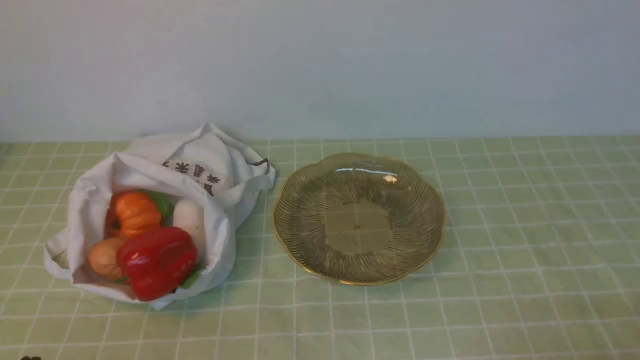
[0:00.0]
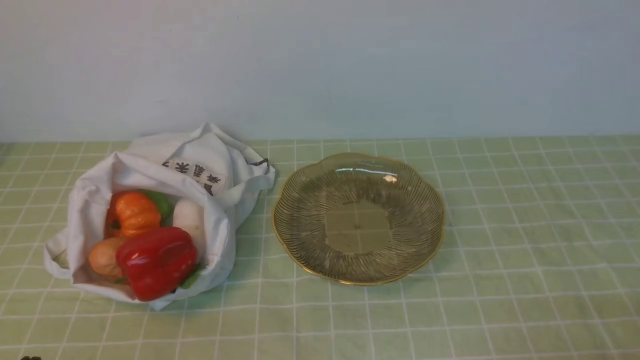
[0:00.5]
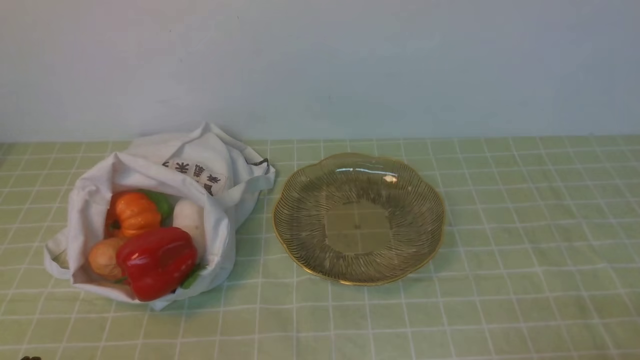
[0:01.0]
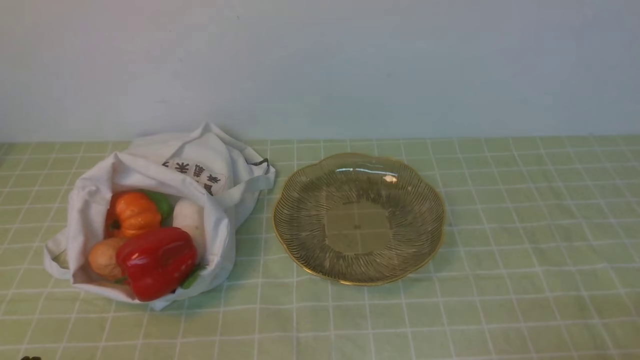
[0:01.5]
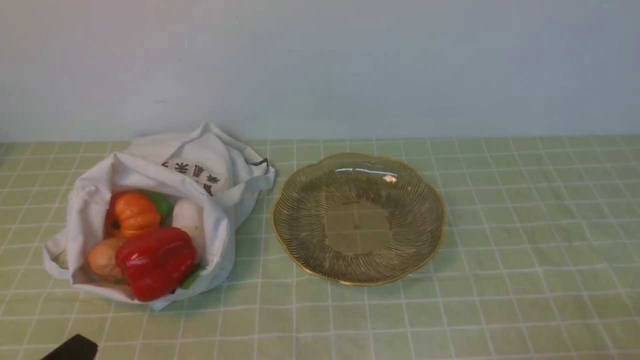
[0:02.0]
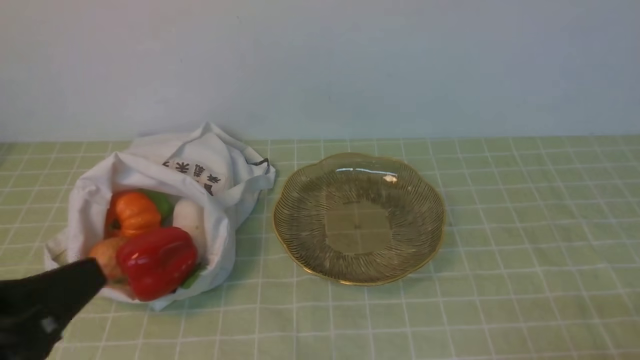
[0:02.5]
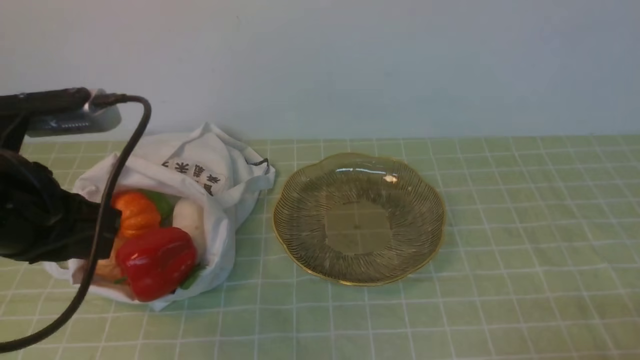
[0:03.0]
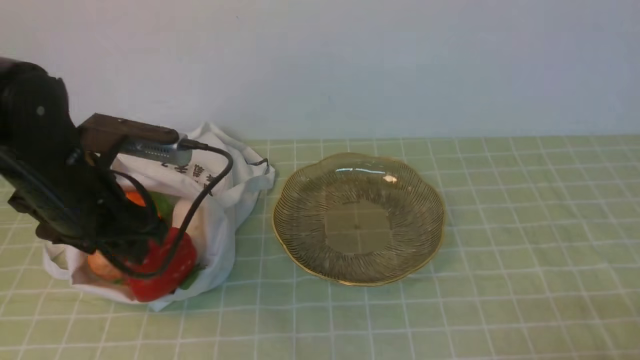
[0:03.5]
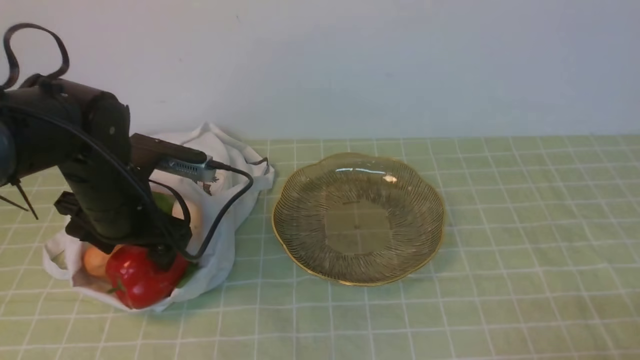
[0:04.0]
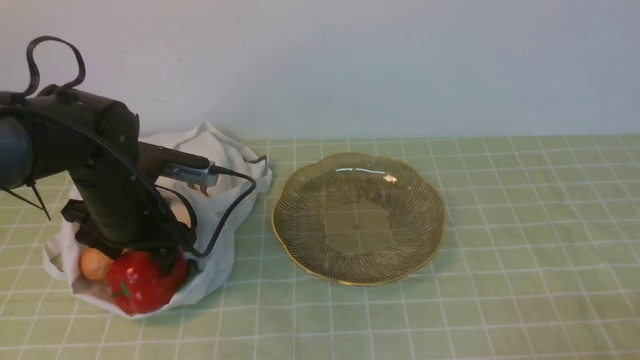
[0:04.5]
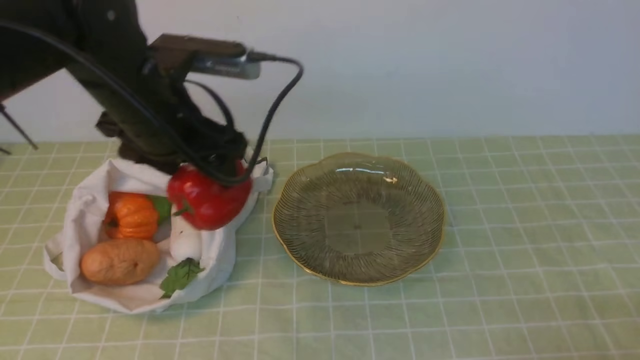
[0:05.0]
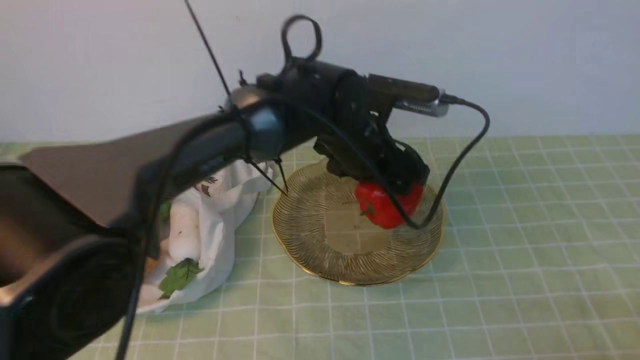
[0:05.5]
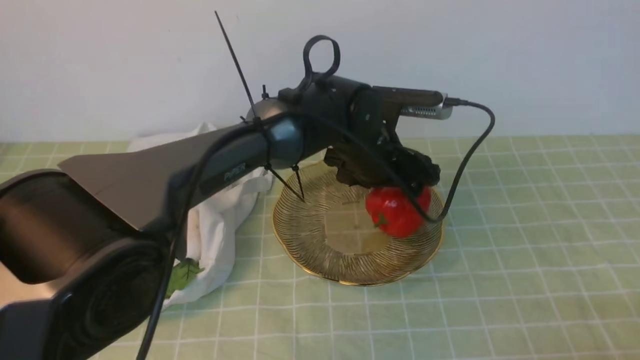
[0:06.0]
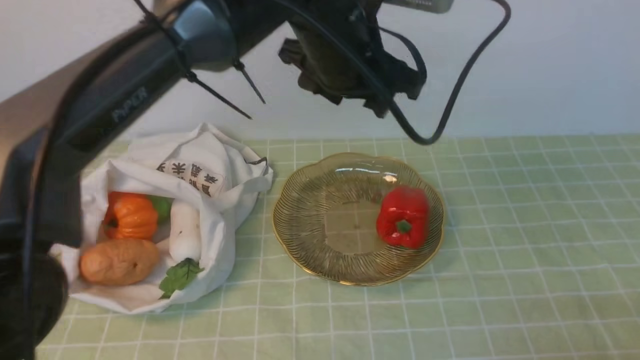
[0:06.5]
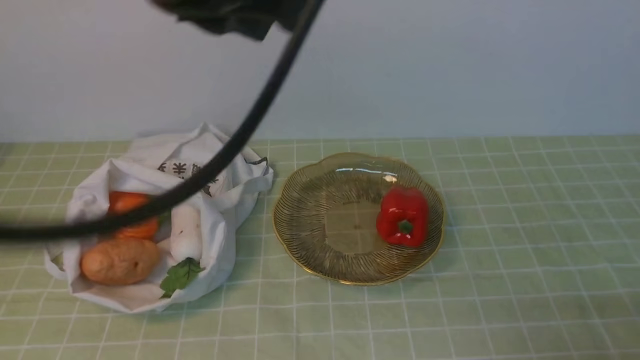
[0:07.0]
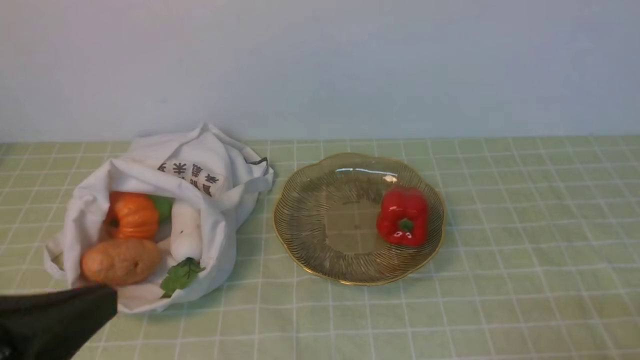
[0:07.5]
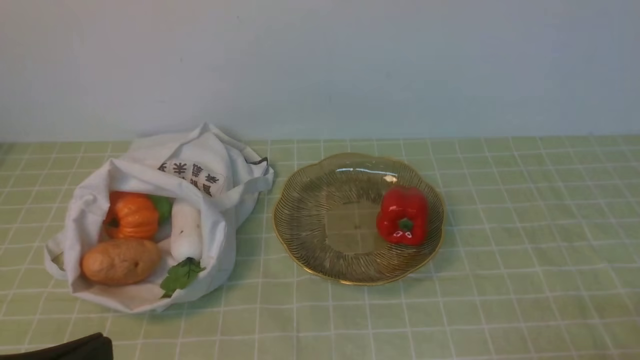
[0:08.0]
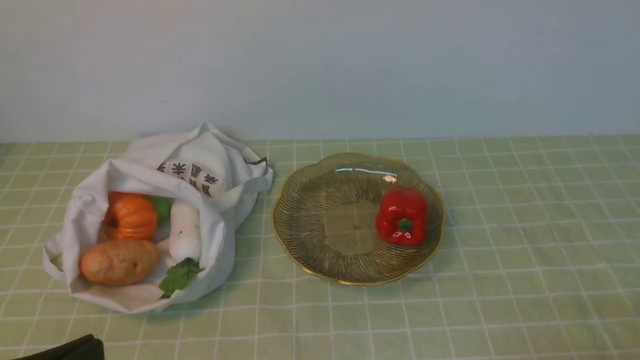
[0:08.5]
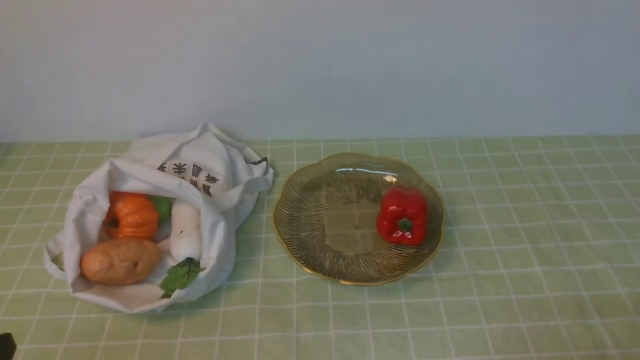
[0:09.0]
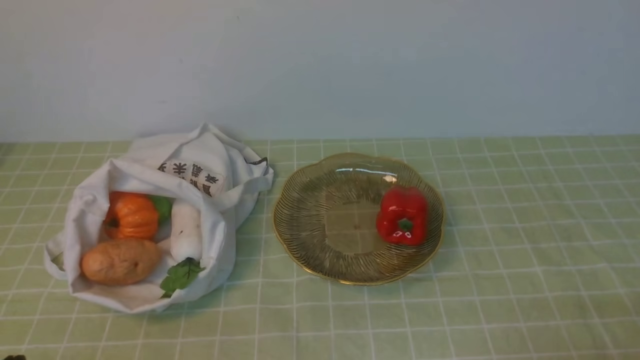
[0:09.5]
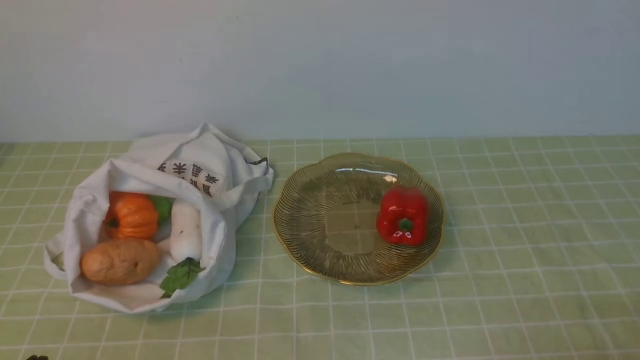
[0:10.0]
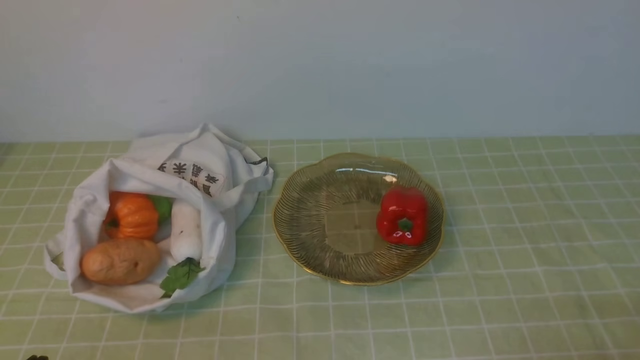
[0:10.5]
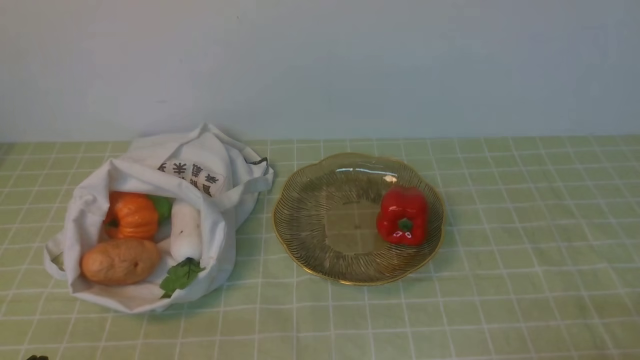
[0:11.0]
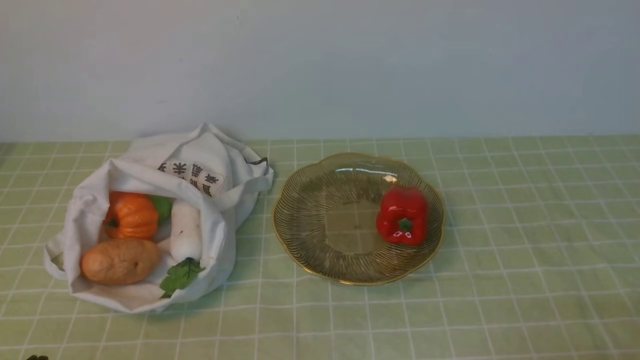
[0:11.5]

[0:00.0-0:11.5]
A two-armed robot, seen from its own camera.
Task of the whole recording: take vegetables from bag on green coffee tablecloth place on plate.
Step, 0:00.0 to 0:04.0: Grasp the bell pepper with left gripper.
Step, 0:04.5 to 0:06.0: Place the bell pepper on the plate with left gripper.
0:02.0 to 0:04.0: The left gripper goes about 25 cm forward, and opens its fingers.
0:04.0 to 0:06.0: The left gripper travels to the right by roughly 25 cm.
0:06.0 to 0:07.5: The left gripper moves backward, to the left and upward, some 40 cm, and closes.
0:07.5 to 0:09.5: The left gripper shifts some 20 cm downward.

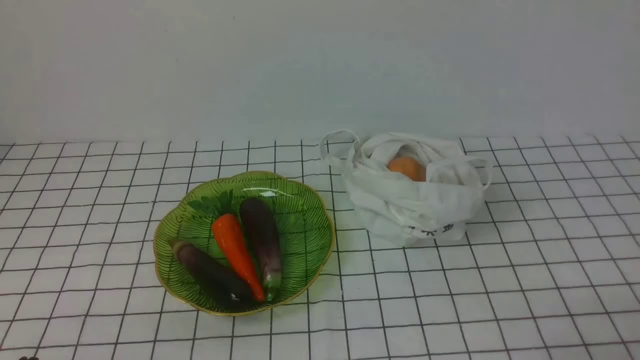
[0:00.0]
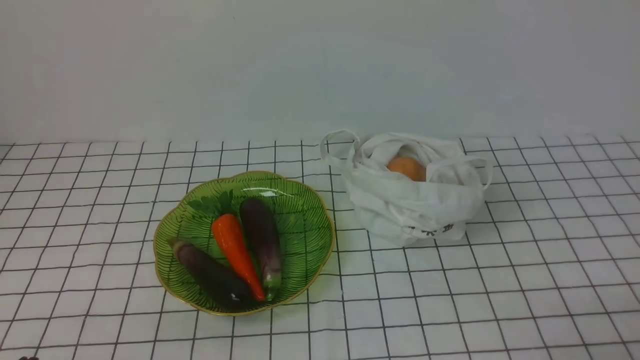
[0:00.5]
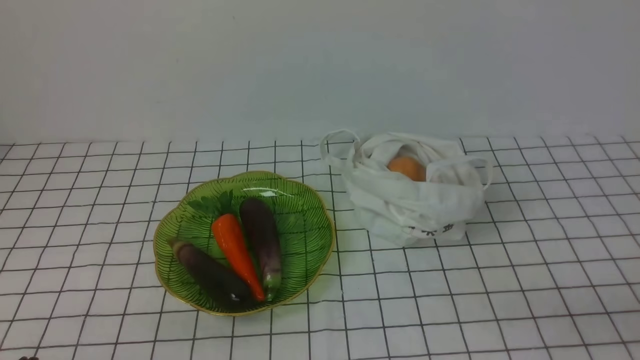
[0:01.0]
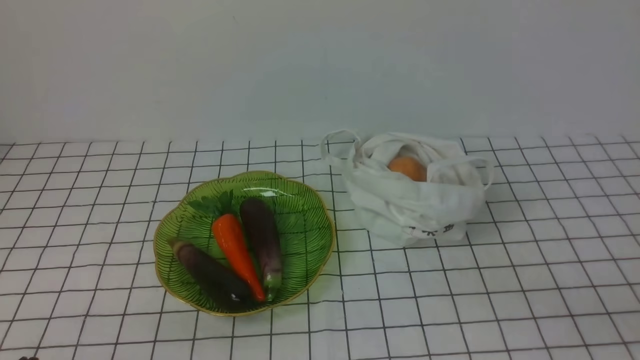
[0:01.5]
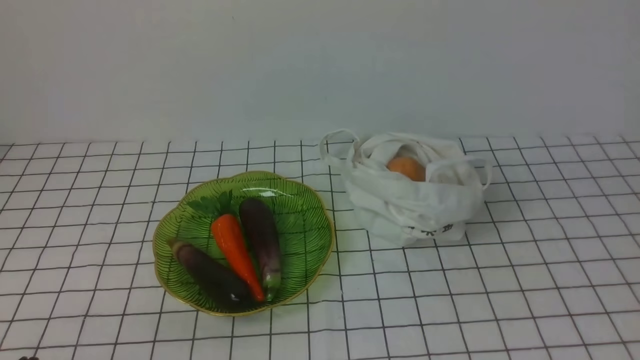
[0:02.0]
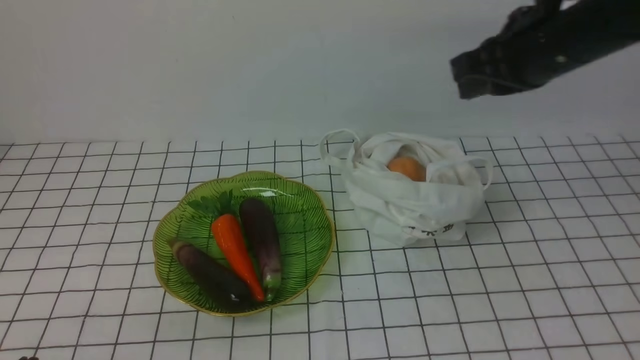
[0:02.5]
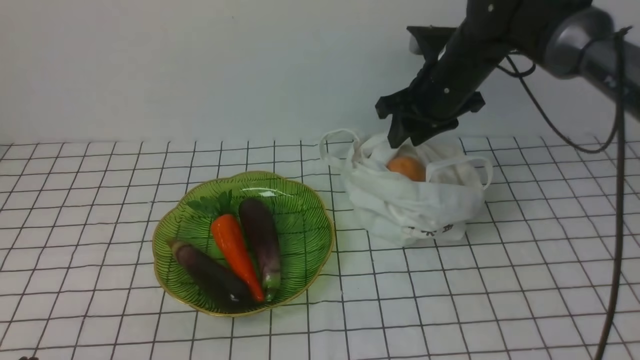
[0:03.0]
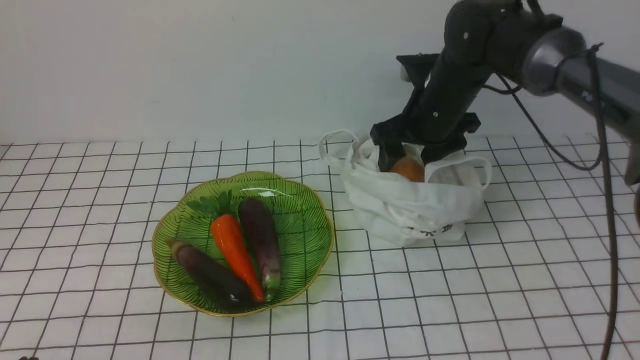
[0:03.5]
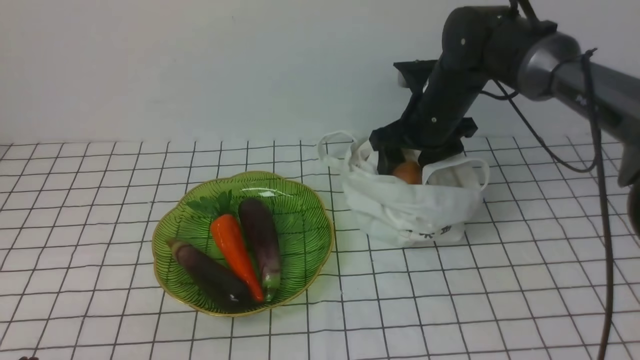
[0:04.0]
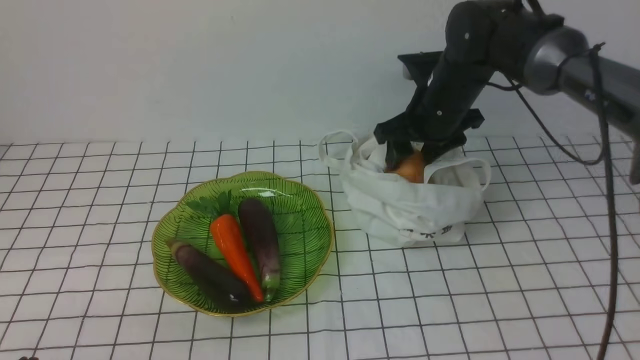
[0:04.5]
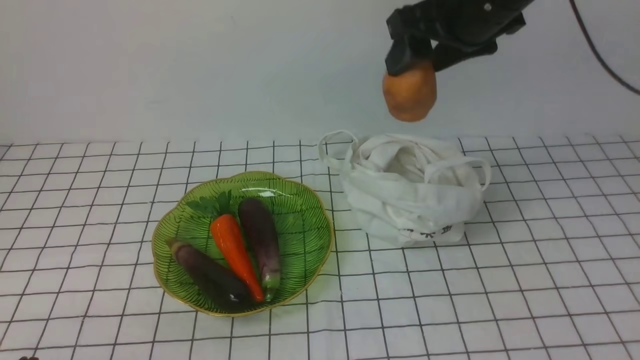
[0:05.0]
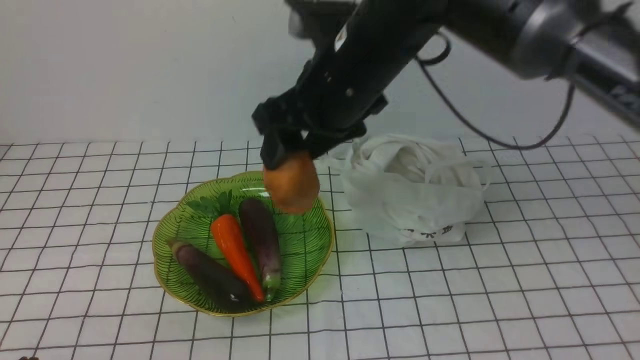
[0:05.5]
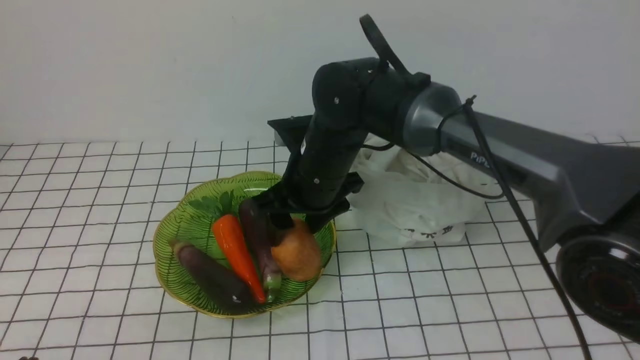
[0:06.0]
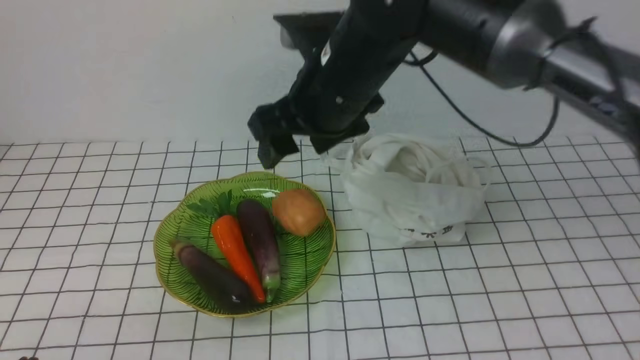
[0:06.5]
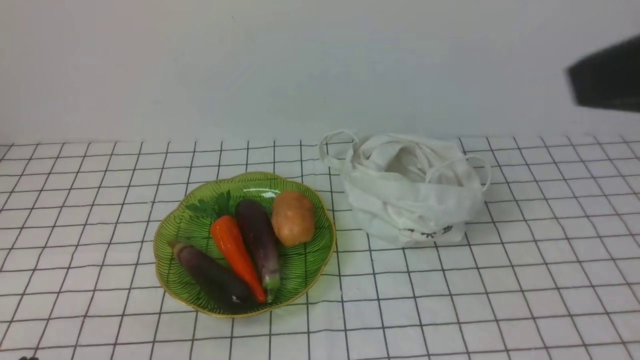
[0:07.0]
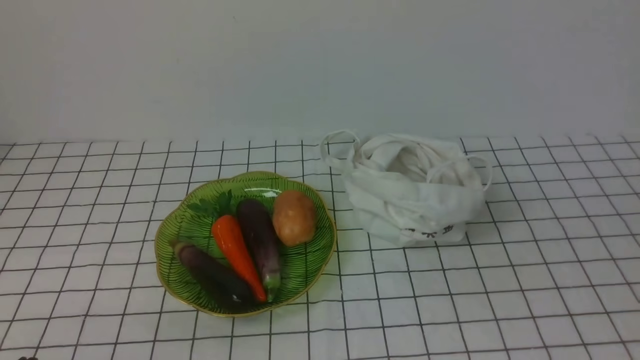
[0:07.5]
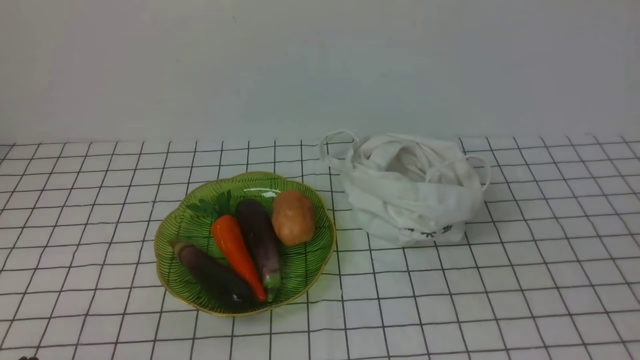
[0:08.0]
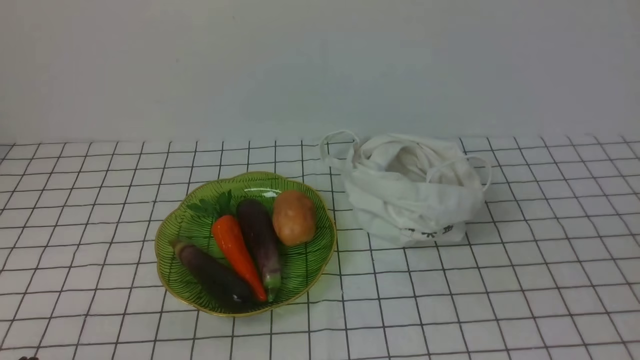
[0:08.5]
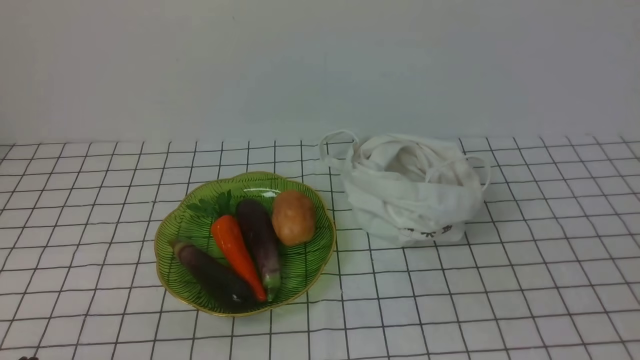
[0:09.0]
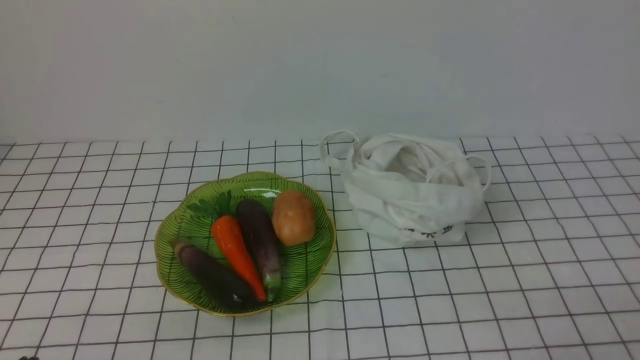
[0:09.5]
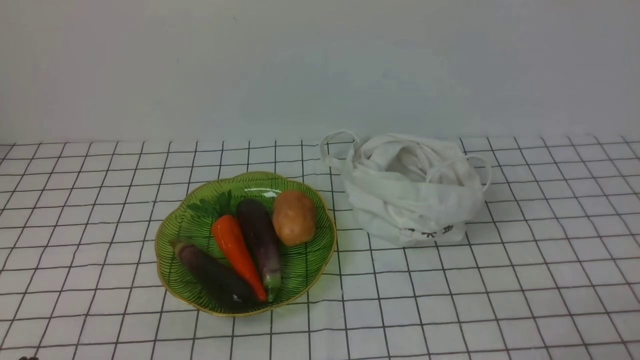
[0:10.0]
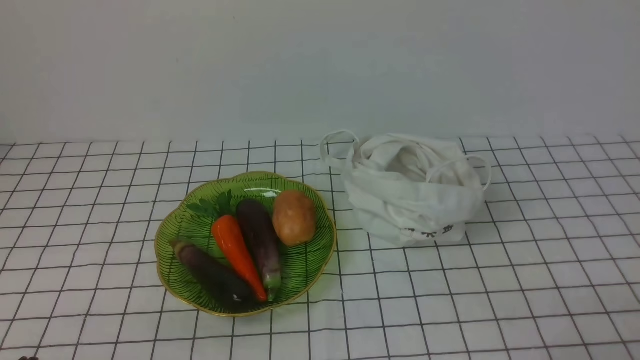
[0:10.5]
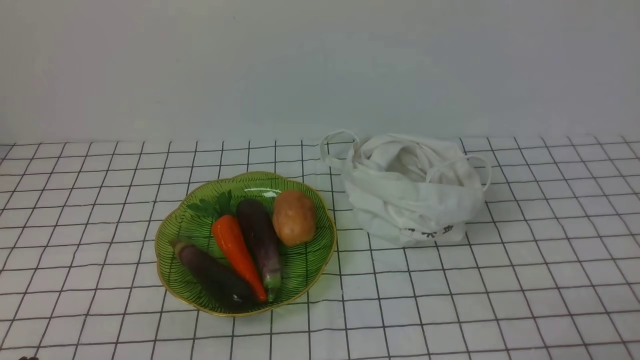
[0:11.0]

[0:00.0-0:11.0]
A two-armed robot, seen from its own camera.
Task of the whole recording: take vegetables from bag on white checkered tablecloth place on plate.
Step, 0:00.0 to 0:04.0: Grasp the potato with right gripper.
Step, 0:04.5 to 0:06.0: Place the potato on the plate with right gripper.
0:02.0 to 0:03.5: The right gripper moves forward, downward and to the left, about 35 cm, and opens its fingers.
0:03.5 to 0:05.5: The right gripper moves to the left, backward and upward, approximately 15 cm.
0:05.5 to 0:07.5: The right gripper goes about 50 cm backward and to the right, and closes its fingers.
